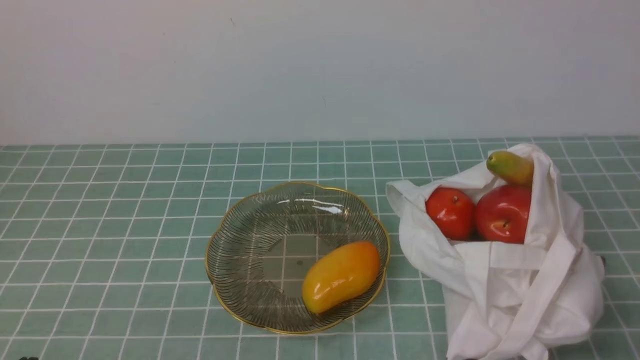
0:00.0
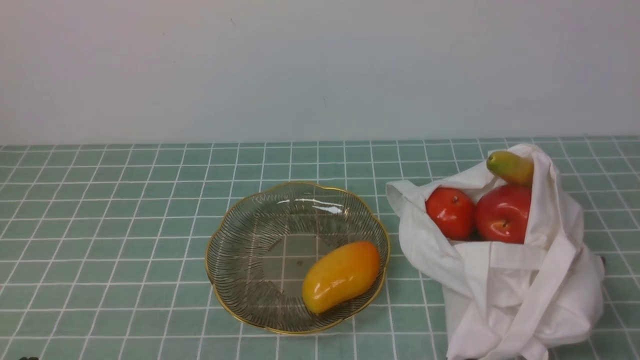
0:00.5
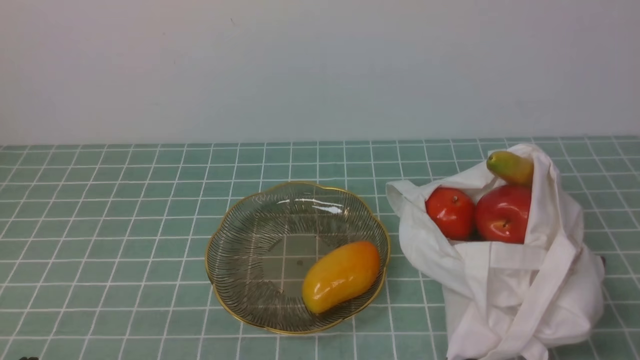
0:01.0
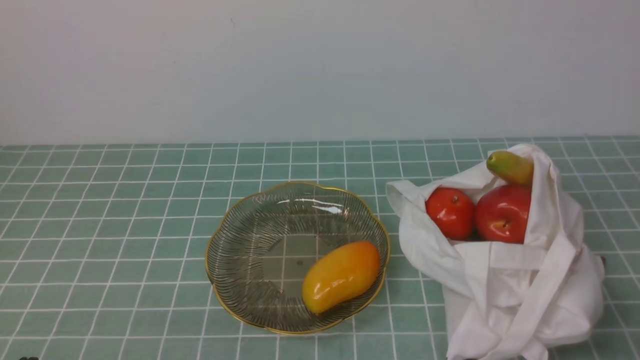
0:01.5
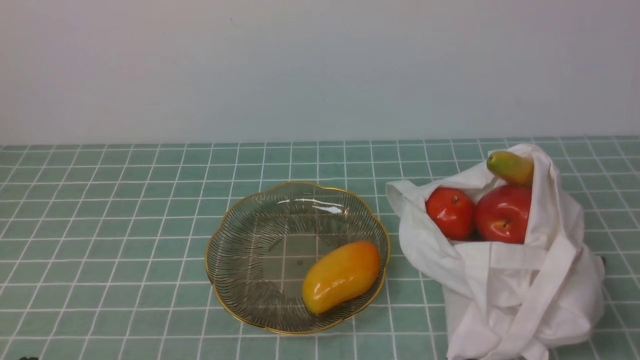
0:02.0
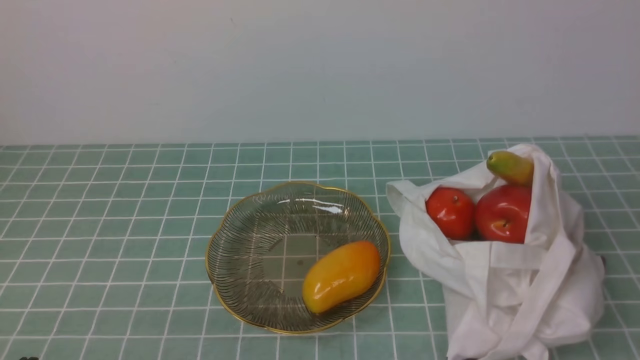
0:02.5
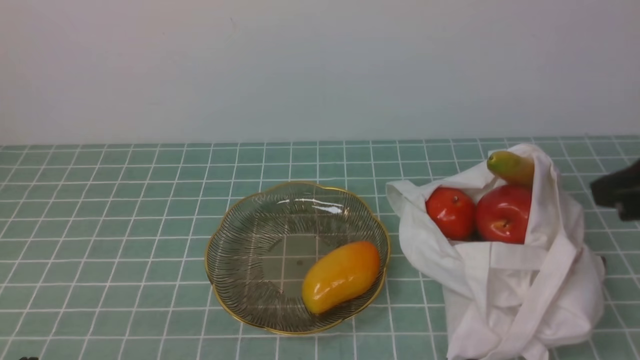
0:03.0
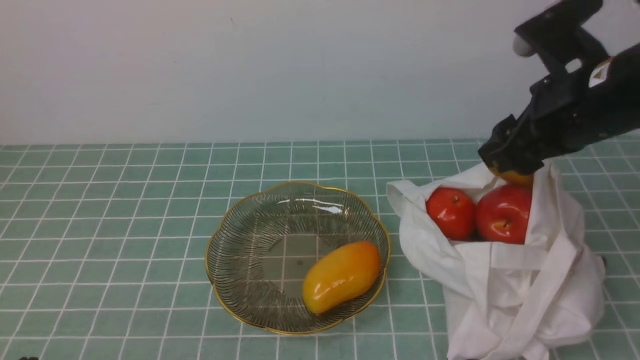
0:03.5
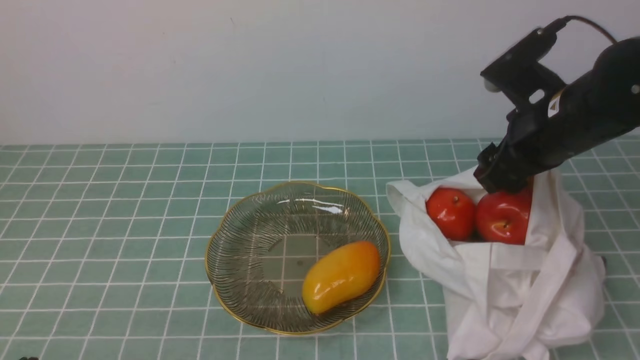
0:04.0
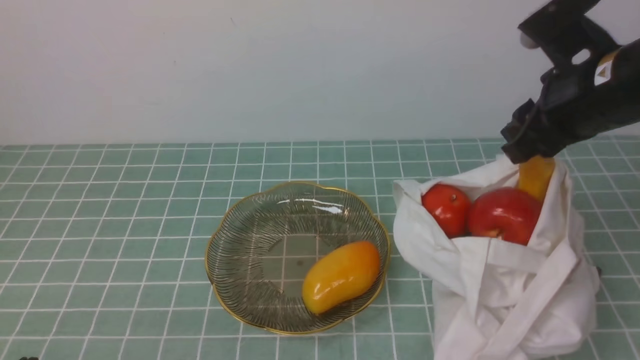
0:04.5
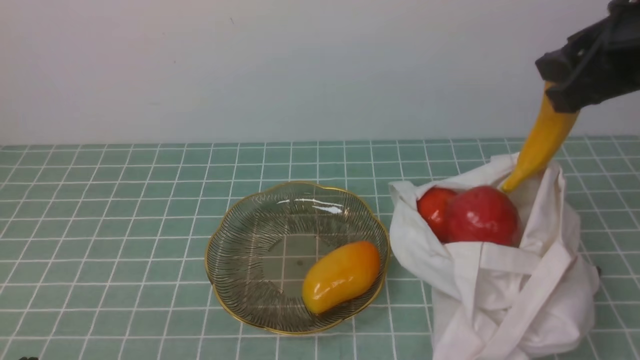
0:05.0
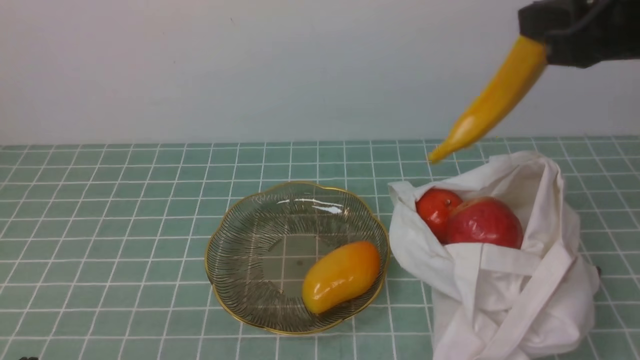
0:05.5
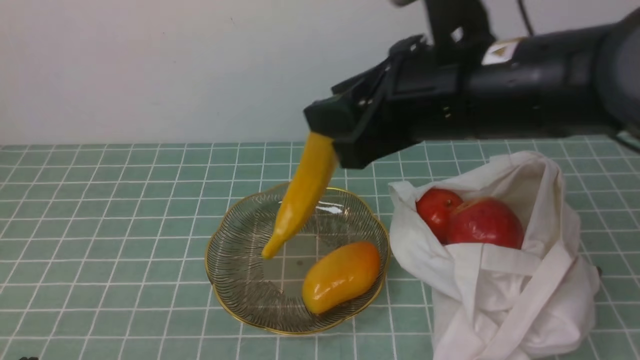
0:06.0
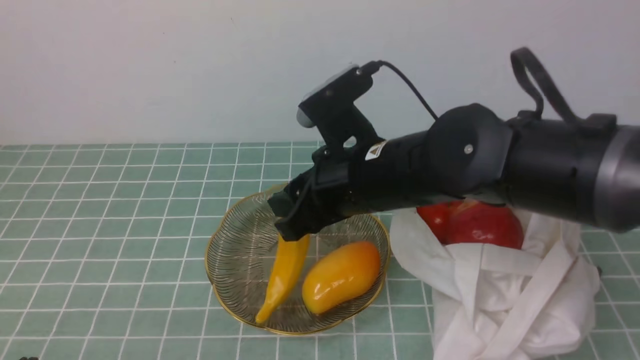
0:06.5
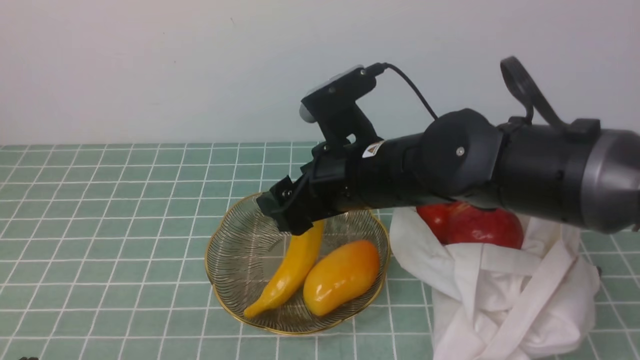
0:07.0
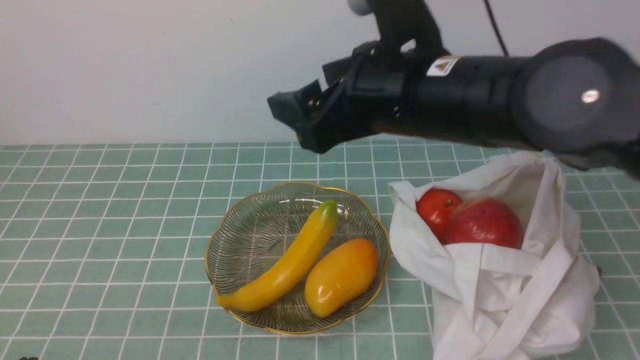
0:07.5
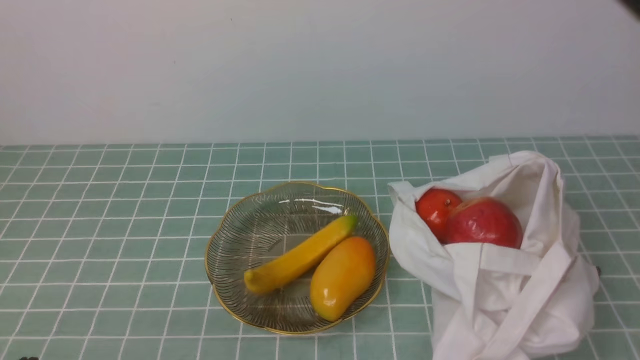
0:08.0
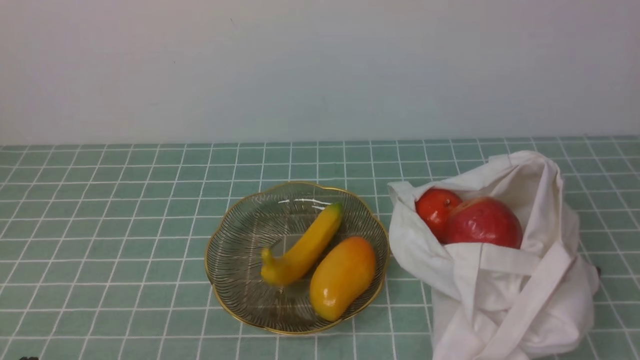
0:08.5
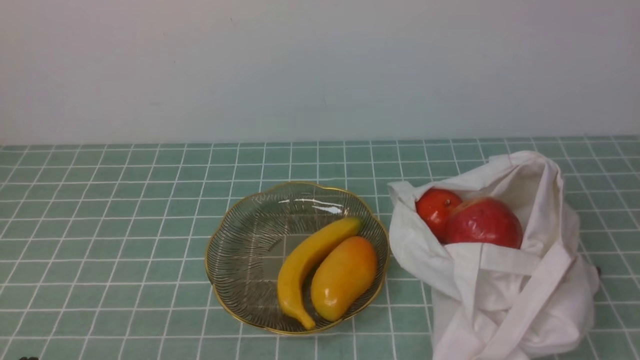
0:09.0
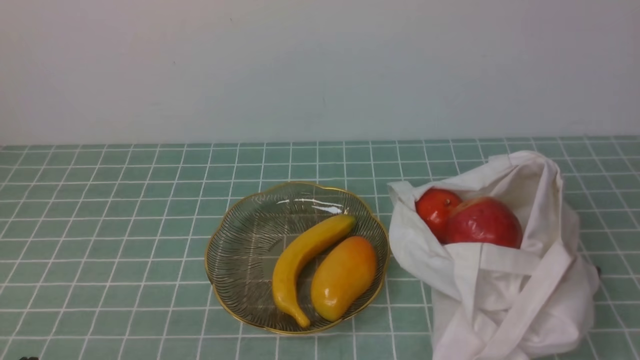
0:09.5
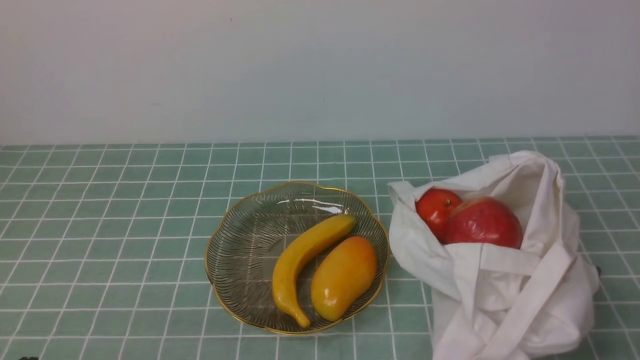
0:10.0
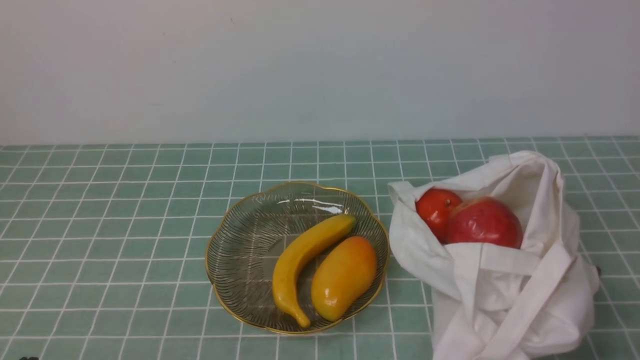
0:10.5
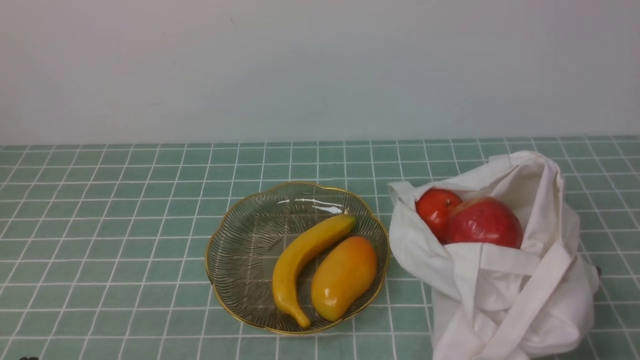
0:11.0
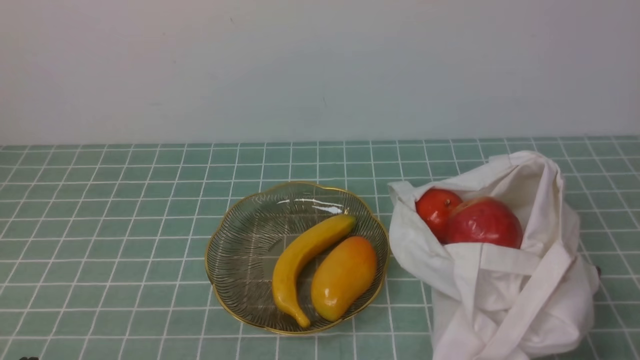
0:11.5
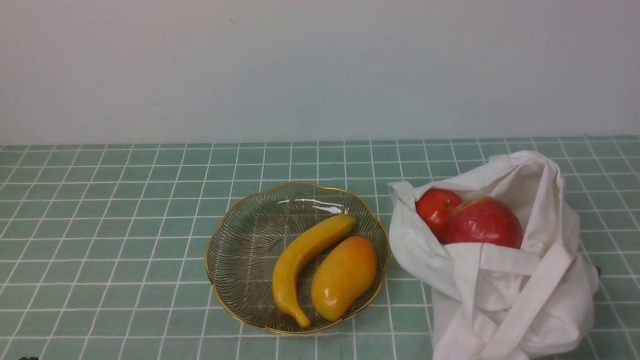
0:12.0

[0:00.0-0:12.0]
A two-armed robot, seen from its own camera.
Step, 0:00.0 to 0:04.0: use the right arm to grab a banana from the bag.
Step, 0:04.5 to 0:06.5: use the right arm to put the banana into the empty plate on the right.
0:02.0 to 0:04.0: The right gripper is displaced forward by approximately 30 cm, and opens its fingers.
0:04.0 to 0:06.0: The right gripper travels to the left, upward and backward by some 15 cm.
0:06.0 to 0:08.0: The right gripper is displaced backward, upward and to the right by some 20 cm, and opens, then closes again.
0:08.0 to 0:10.0: The right gripper goes some 30 cm downward and to the right.
